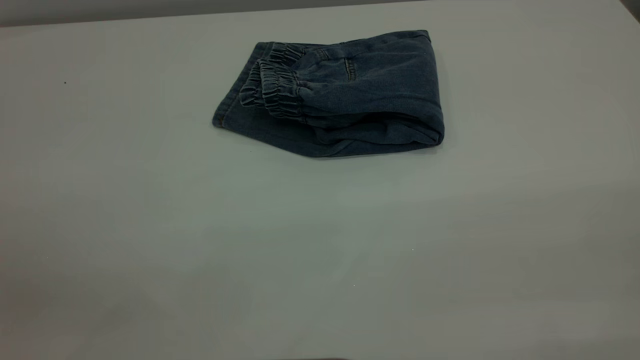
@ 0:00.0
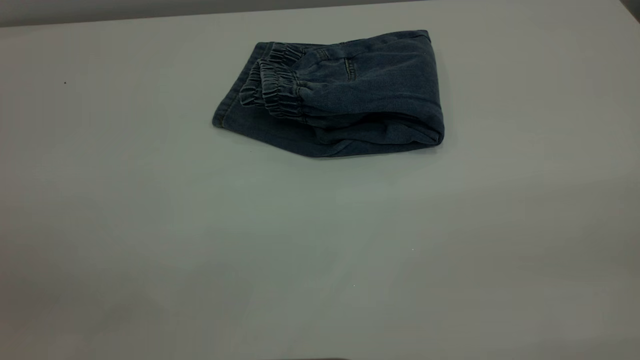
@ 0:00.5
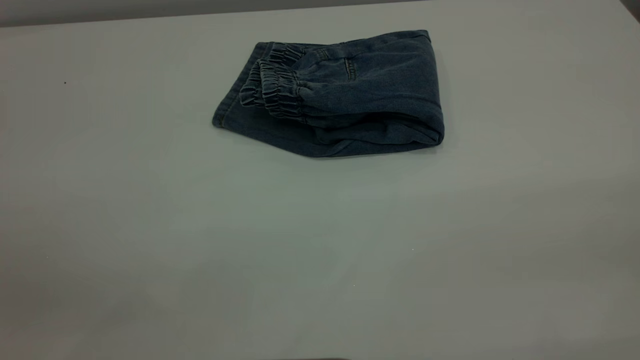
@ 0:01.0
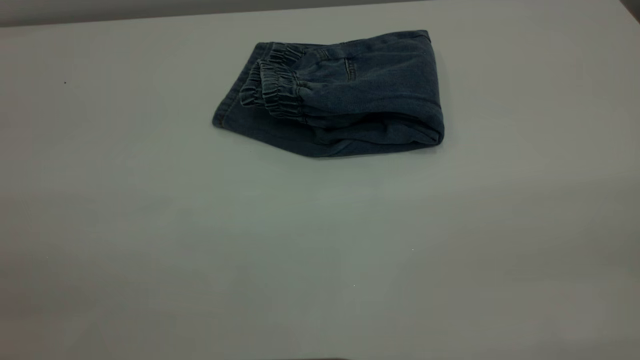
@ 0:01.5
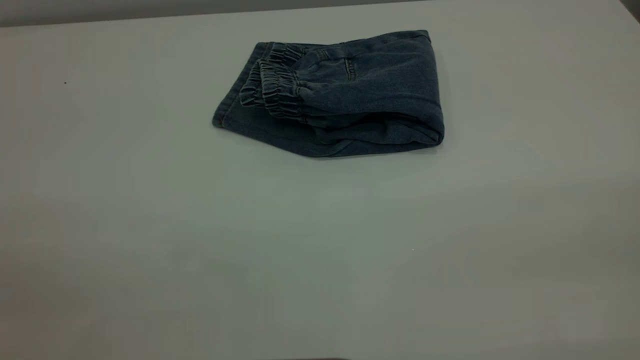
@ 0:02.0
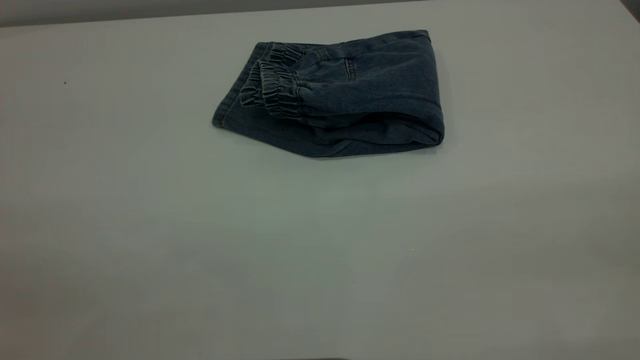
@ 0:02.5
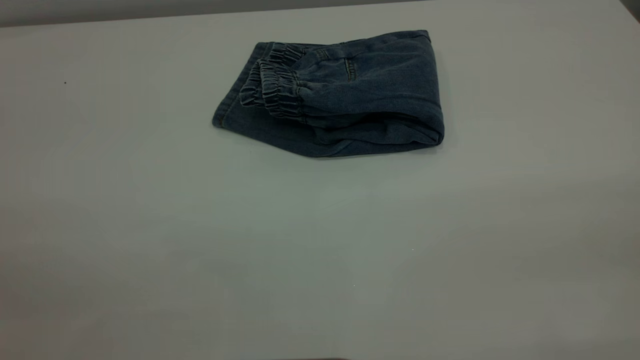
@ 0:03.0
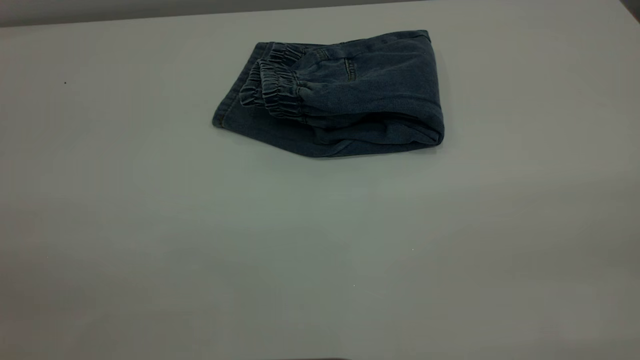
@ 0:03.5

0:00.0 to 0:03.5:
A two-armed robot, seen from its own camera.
0:02.0 to 0:03.5: Both grippers stay put.
